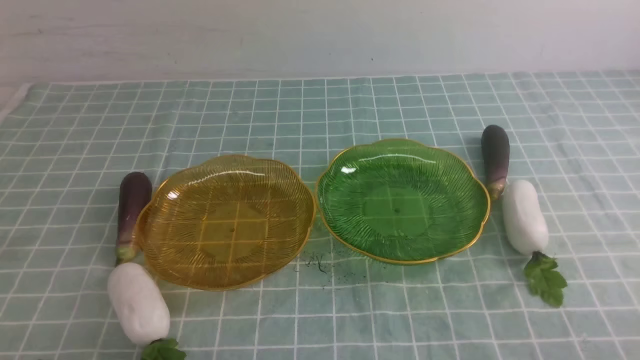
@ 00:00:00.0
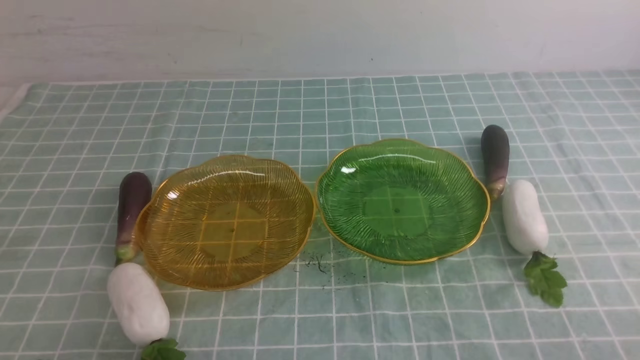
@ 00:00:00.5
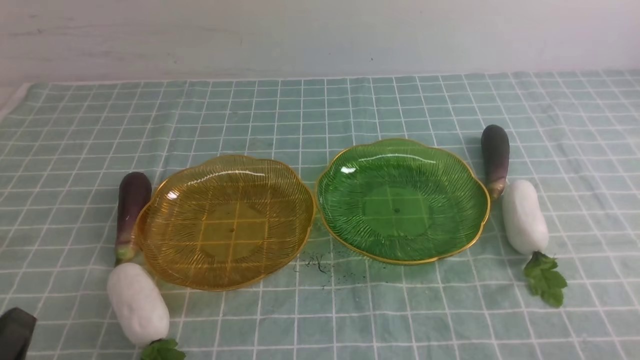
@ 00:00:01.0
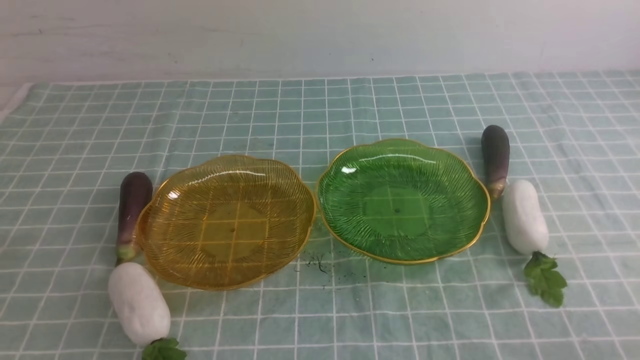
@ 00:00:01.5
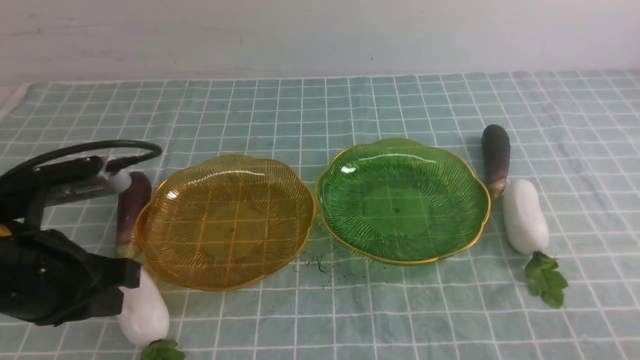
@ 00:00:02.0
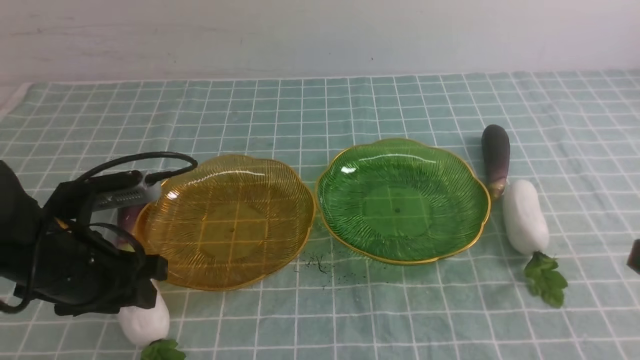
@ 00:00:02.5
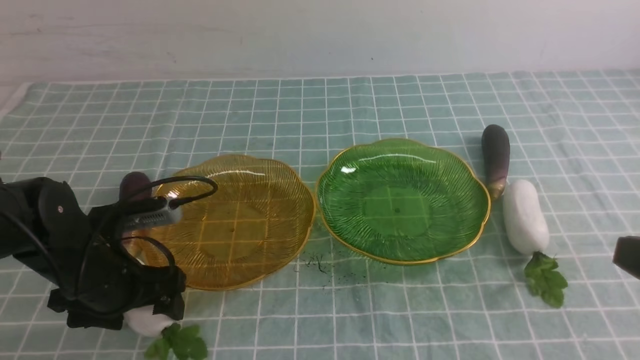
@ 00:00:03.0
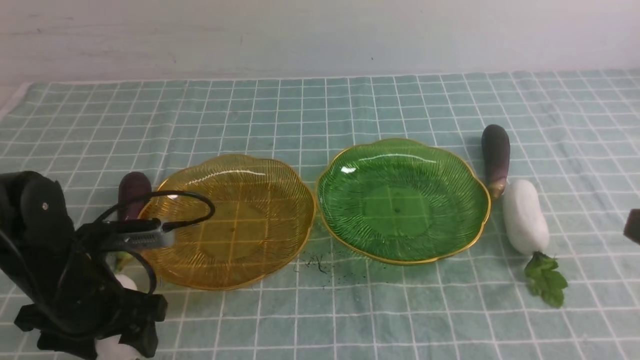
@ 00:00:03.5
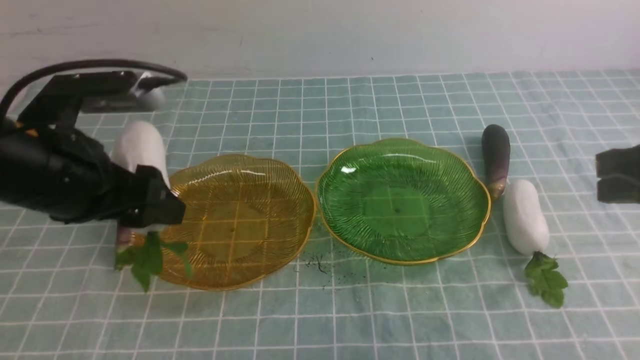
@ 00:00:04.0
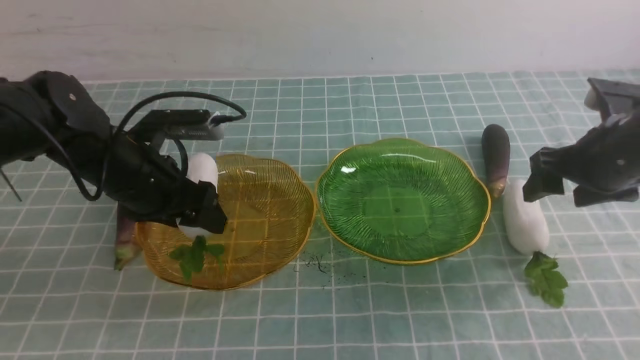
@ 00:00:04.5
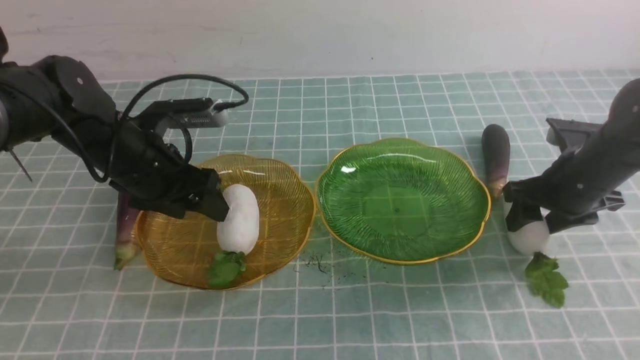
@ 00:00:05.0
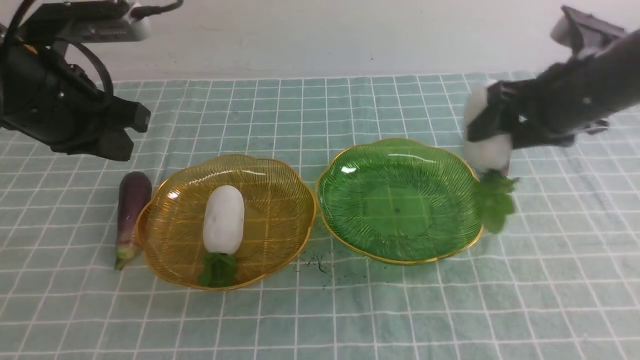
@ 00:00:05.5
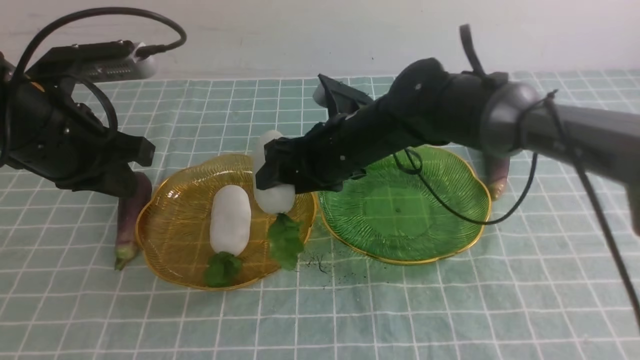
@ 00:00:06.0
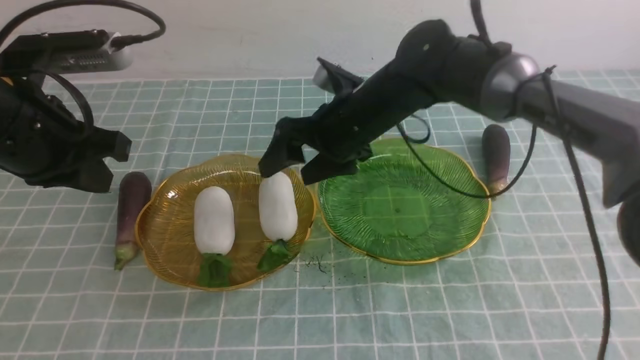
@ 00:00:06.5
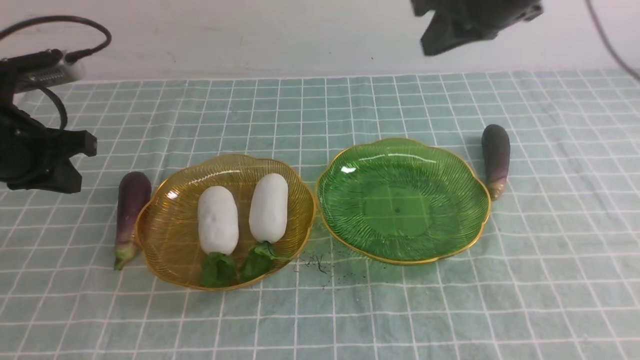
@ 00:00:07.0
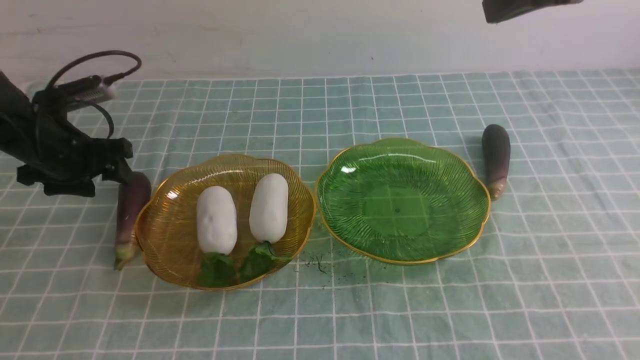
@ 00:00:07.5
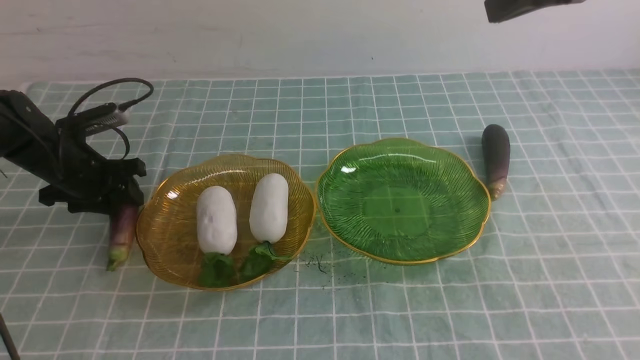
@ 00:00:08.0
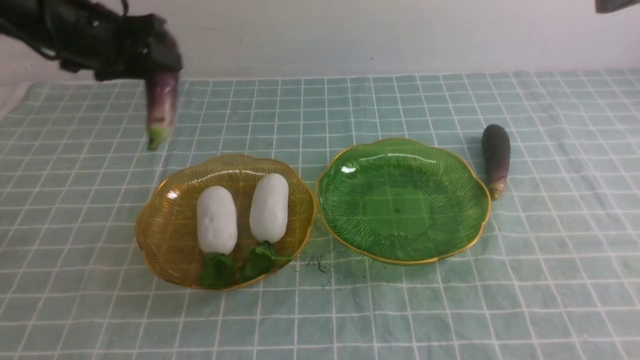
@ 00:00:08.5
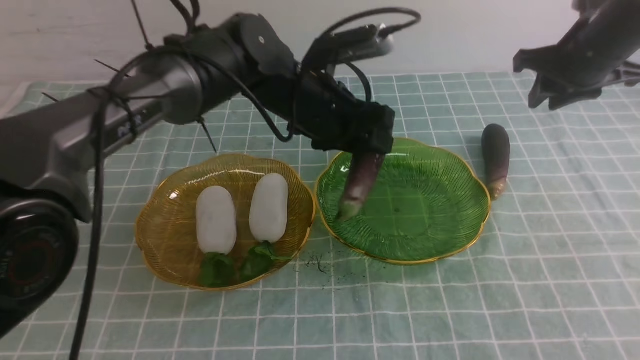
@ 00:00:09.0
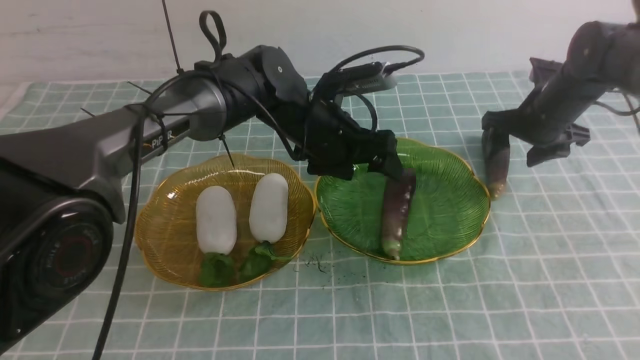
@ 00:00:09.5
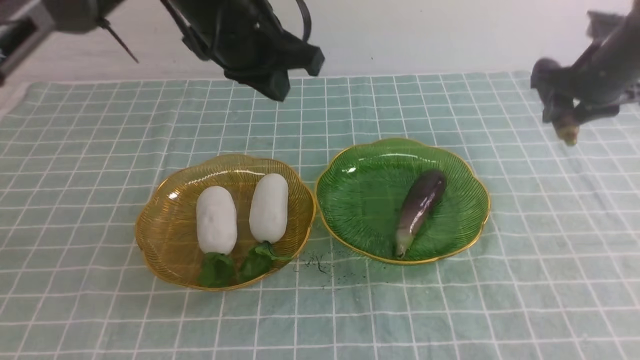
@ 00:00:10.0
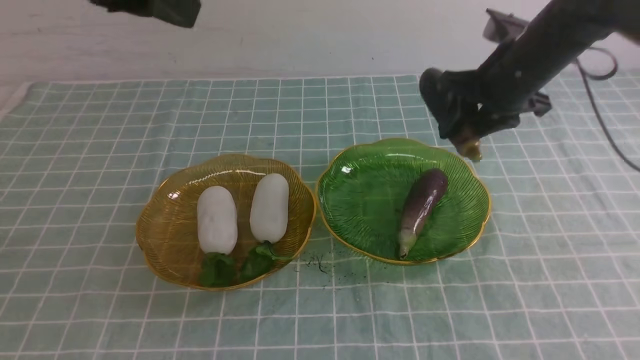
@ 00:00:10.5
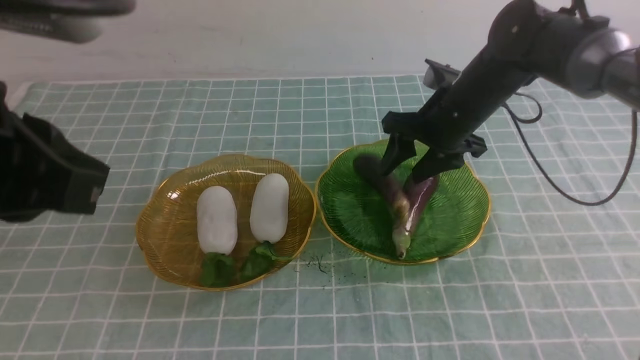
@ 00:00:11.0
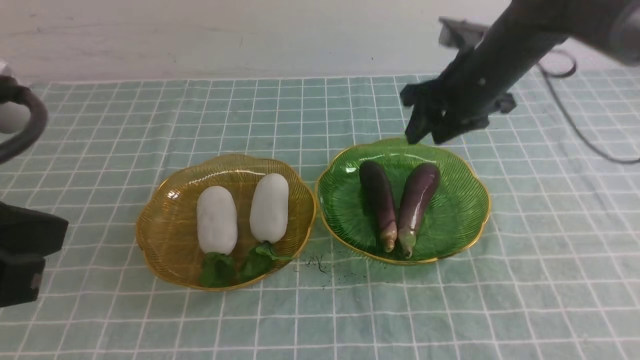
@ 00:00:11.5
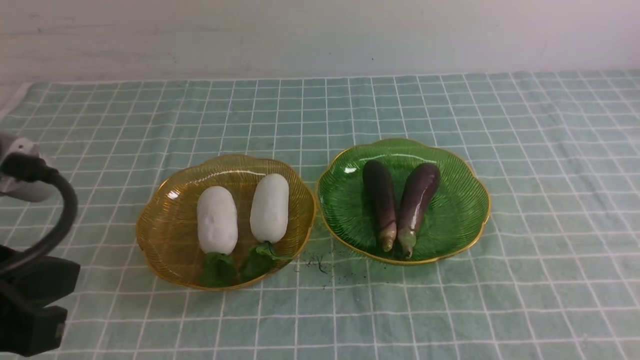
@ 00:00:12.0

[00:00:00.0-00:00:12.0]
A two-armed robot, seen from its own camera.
Step, 00:00:00.0 to 00:00:05.0: use the left arm to grab a radish and put it into the left plate.
Step, 00:00:05.5 to 00:00:06.0: use the right arm to grab a radish and put it into the left plate.
Step, 00:00:07.0 to 00:00:09.5: use the left arm to grab an eggplant and put it into the right plate.
Step, 00:00:10.0 to 00:00:11.0: use the right arm to grab an eggplant and put it into the right plate.
00:00:00.0 to 00:00:02.0: The left gripper heads forward and upward, covering roughly 20 cm.
00:00:02.0 to 00:00:04.0: The left gripper goes approximately 10 cm forward, goes downward and returns, approximately 10 cm each way, and opens its fingers; the right gripper moves forward, about 20 cm.
00:00:04.0 to 00:00:06.0: The left gripper moves some 10 cm downward and comes back, and closes. Meanwhile the right gripper is displaced to the left and forward by some 30 cm, and opens its fingers.
00:00:06.0 to 00:00:08.0: The left gripper goes approximately 20 cm forward, downward and to the left, and opens up. Meanwhile the right gripper goes about 30 cm upward and to the right, and closes up.
00:00:08.0 to 00:00:10.0: The right gripper goes about 25 cm downward, forward and to the right, and opens its fingers. Meanwhile the left gripper shifts about 30 cm to the right and upward, and closes.
00:00:10.0 to 00:00:12.0: The left gripper goes some 30 cm backward and to the left; the right gripper is displaced backward and upward by some 40 cm, and closes.

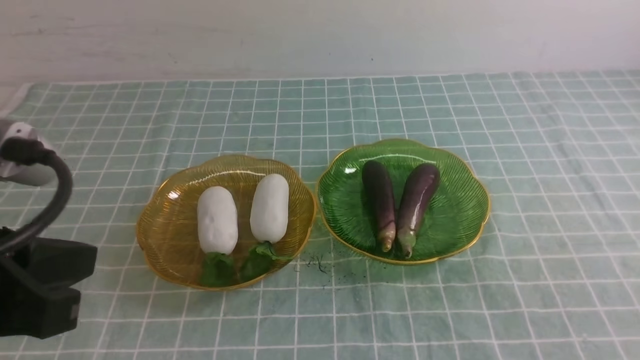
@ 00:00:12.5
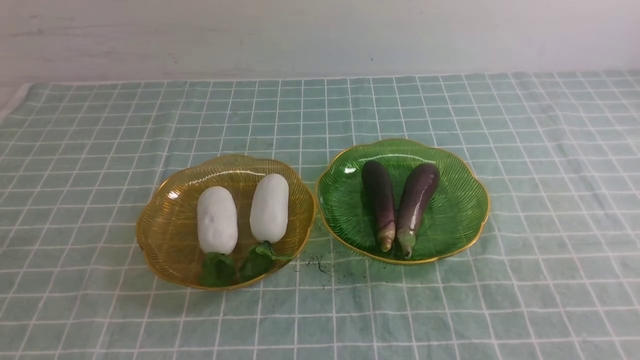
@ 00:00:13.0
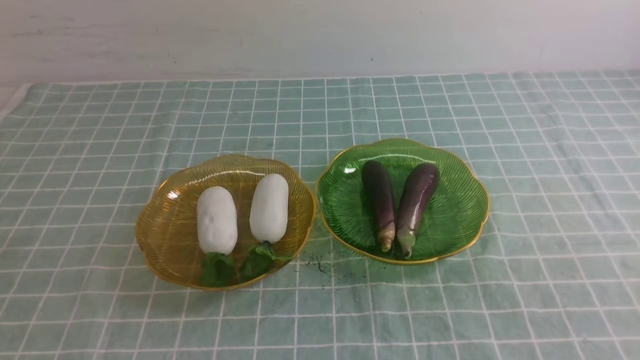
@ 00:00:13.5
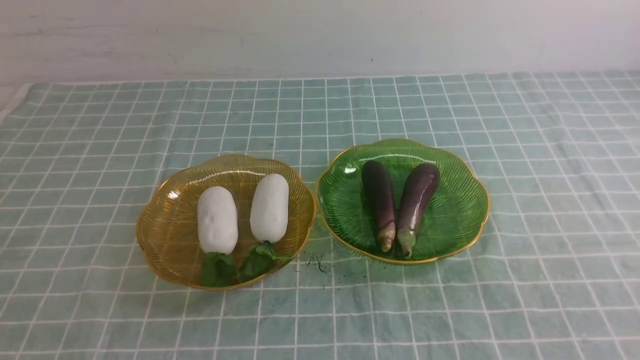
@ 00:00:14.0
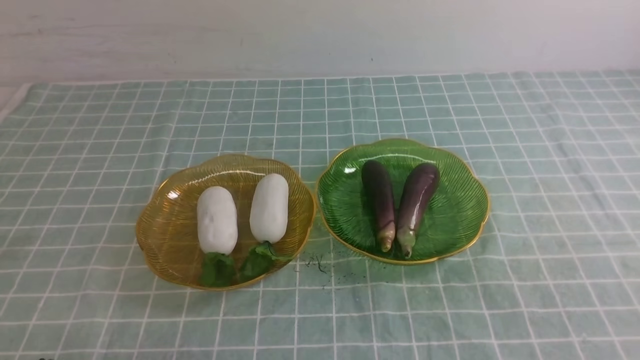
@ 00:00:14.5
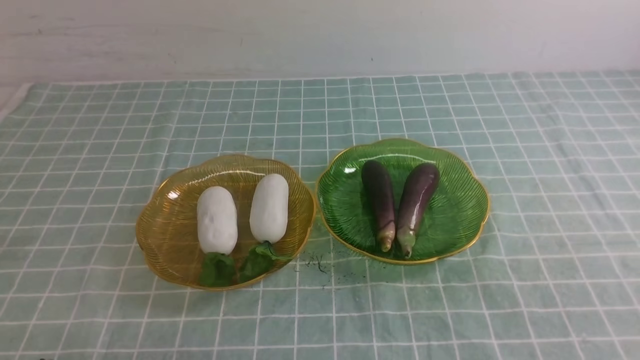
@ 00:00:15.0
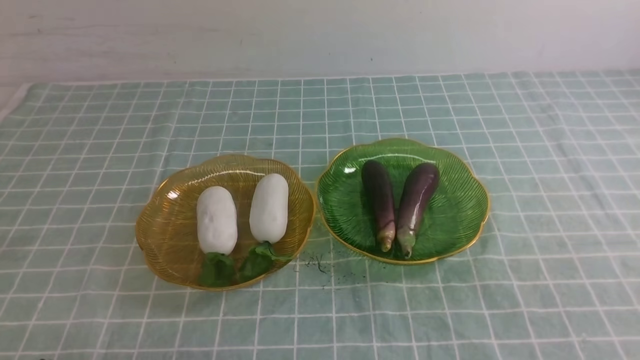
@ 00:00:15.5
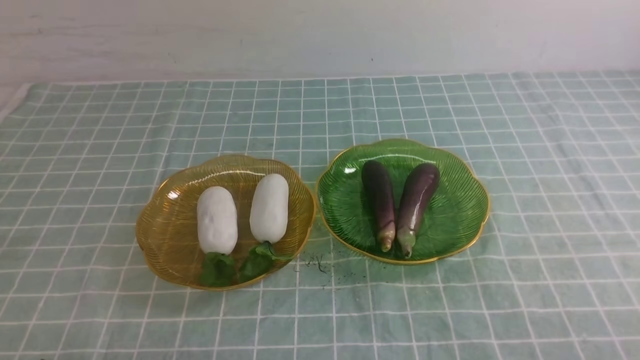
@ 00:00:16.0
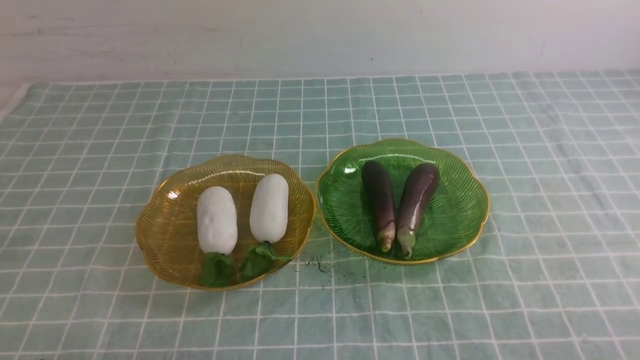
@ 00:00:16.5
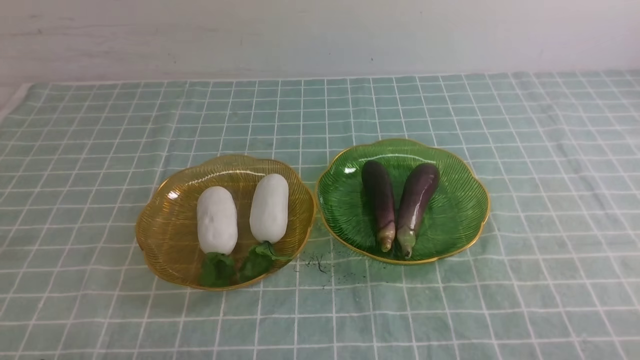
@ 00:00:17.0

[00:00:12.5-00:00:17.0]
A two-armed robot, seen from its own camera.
00:00:12.5 to 00:00:14.5: The left gripper travels downward by roughly 20 cm.
